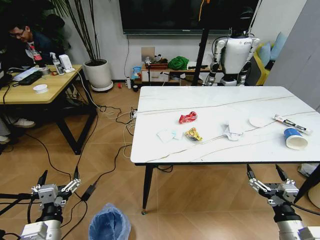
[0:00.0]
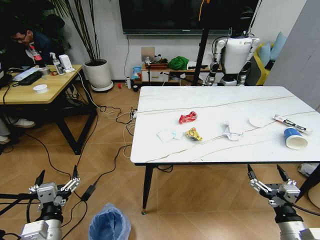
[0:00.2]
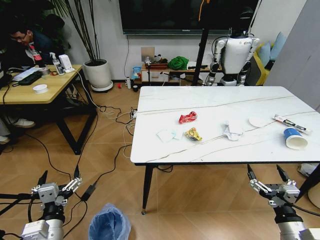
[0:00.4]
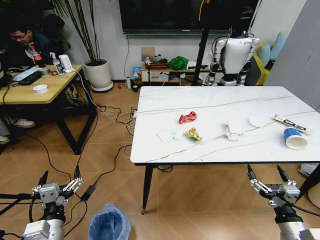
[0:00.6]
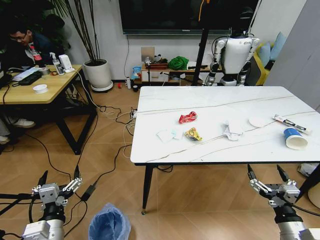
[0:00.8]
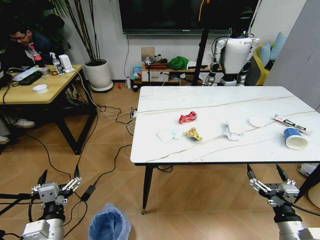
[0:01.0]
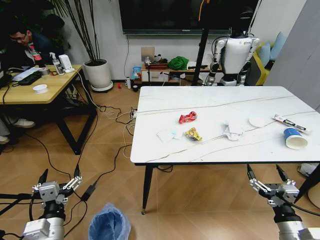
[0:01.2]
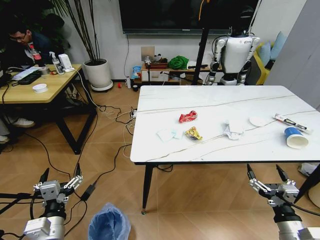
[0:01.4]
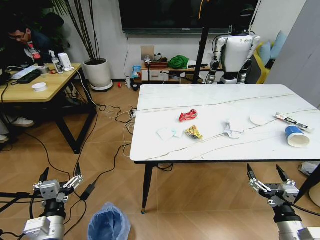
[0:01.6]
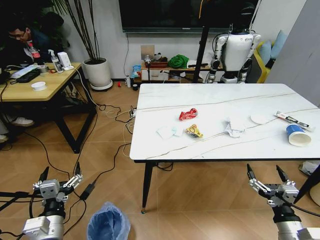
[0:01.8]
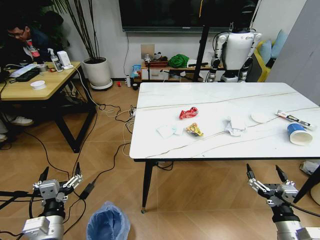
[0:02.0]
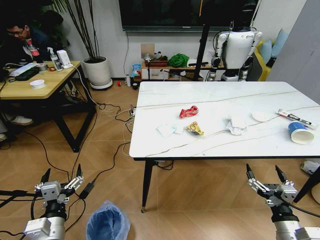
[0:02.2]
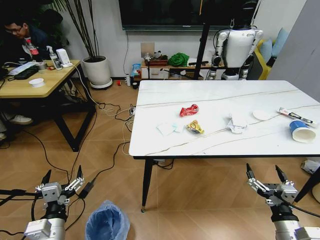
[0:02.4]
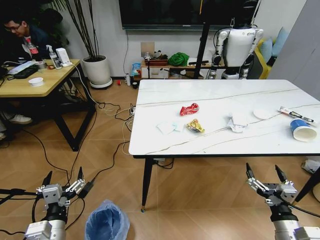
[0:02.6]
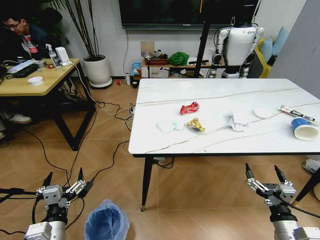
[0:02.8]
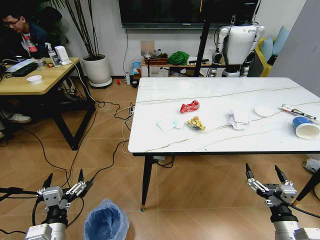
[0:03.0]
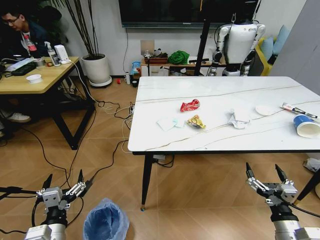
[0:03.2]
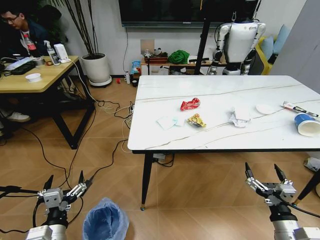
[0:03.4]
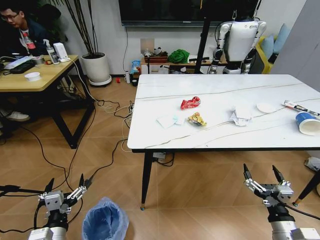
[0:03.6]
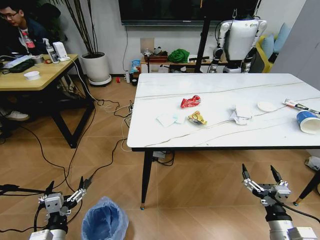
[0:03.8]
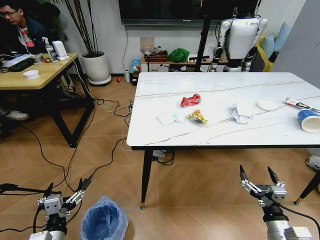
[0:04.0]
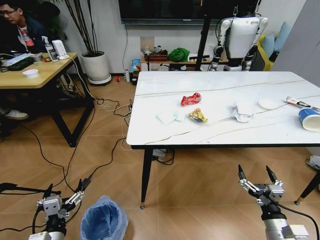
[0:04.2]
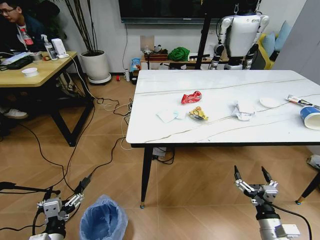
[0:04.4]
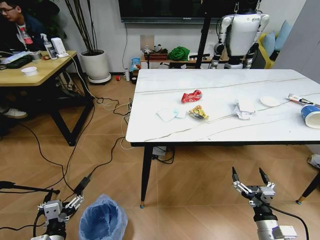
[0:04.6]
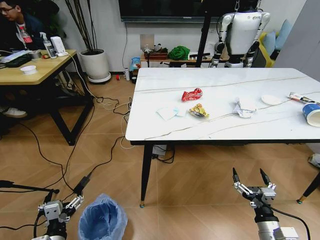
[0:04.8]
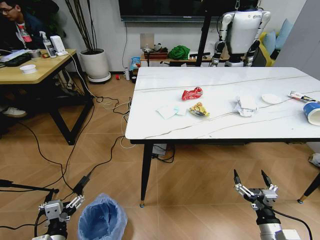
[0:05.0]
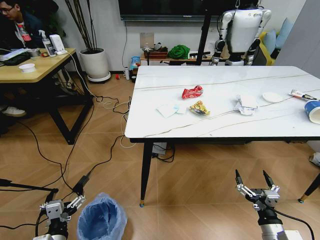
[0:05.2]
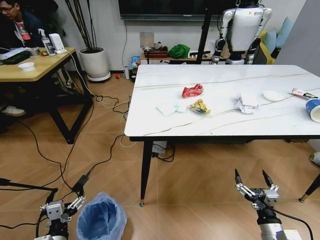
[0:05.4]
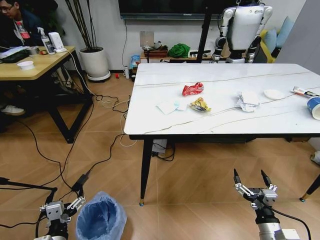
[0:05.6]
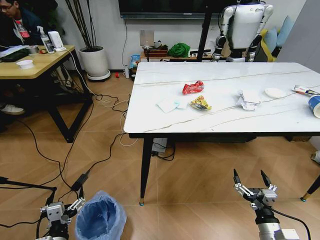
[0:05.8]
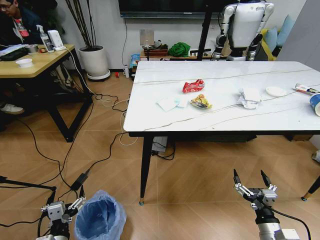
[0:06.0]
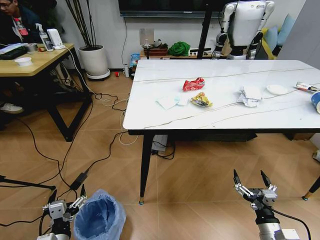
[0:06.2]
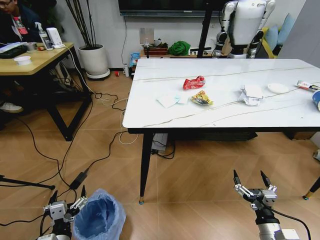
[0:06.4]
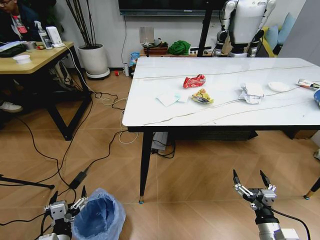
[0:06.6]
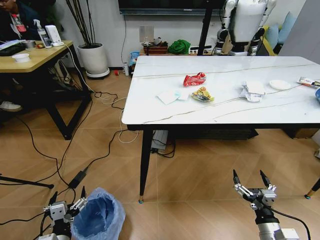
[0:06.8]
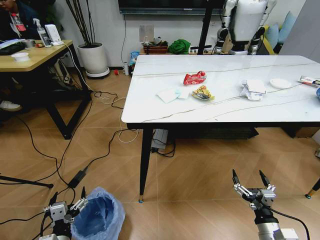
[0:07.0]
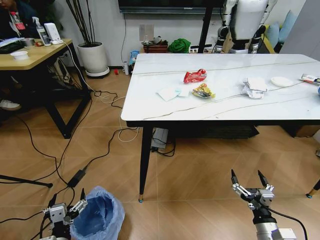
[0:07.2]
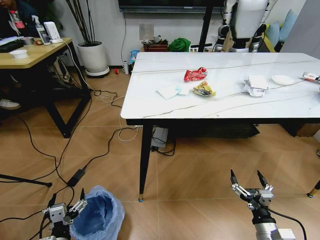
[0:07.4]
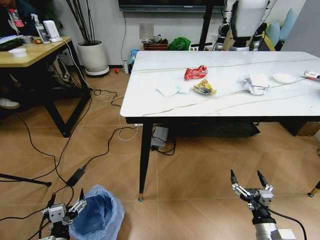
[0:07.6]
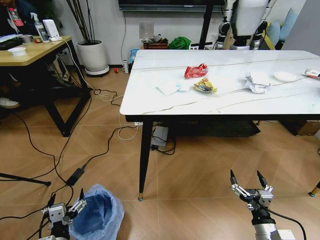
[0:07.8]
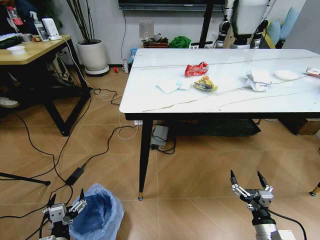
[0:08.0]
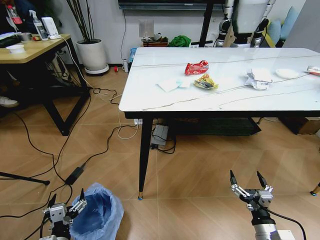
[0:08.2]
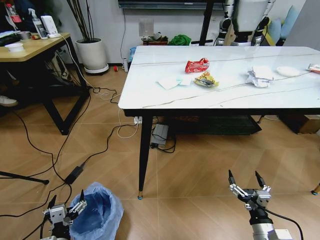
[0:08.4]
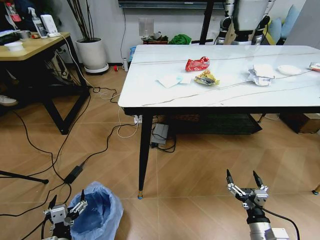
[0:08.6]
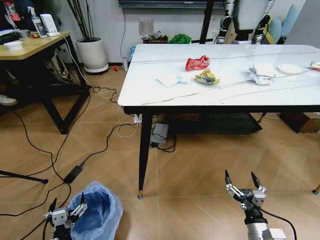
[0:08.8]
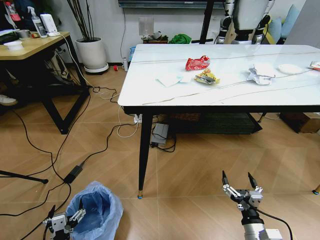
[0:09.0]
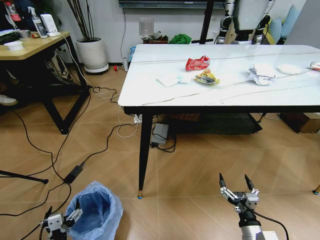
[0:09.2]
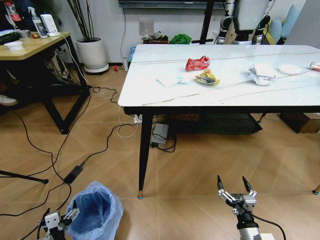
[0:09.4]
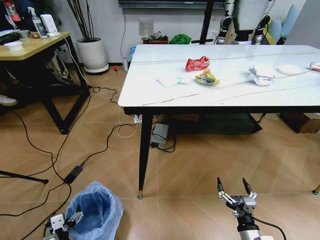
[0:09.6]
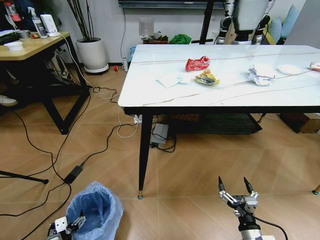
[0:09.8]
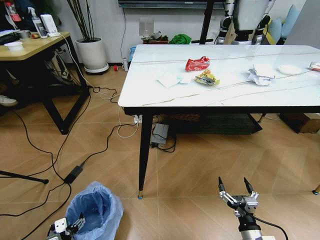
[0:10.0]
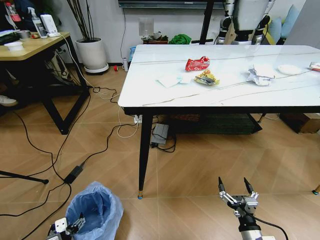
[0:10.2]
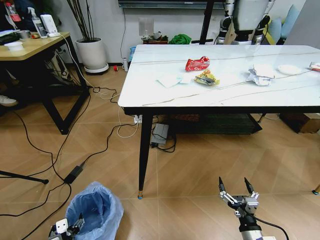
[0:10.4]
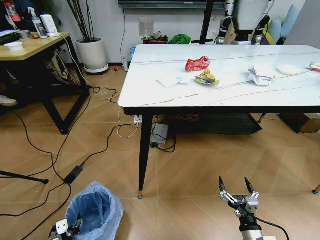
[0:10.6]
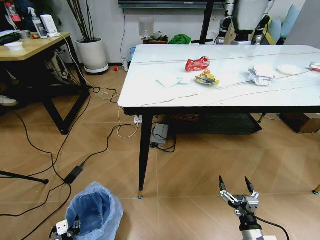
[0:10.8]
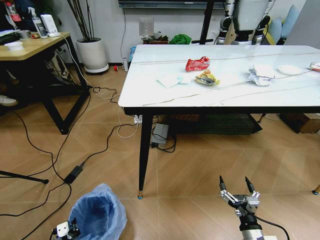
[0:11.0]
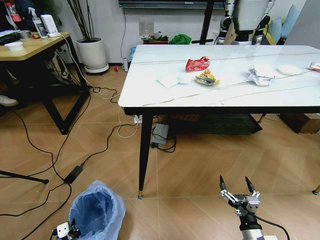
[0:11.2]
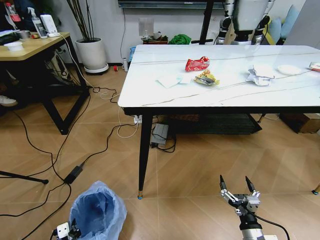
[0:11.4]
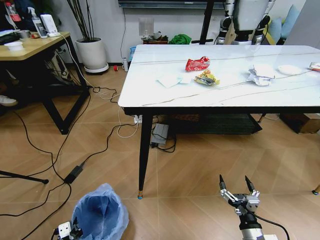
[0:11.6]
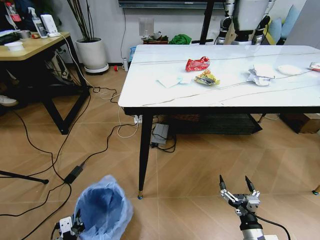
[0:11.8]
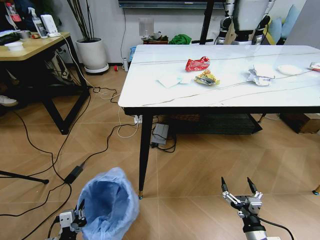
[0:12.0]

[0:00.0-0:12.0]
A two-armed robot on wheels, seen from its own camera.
Task of the whole recording: Pick up the trash bin and place the trash from the table into it.
0:09.0 to 0:10.4: The left gripper shifts by some 5 cm.
0:10.4 to 0:12.0: The left gripper shifts approximately 10 cm upward, and closes.

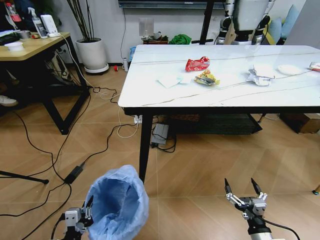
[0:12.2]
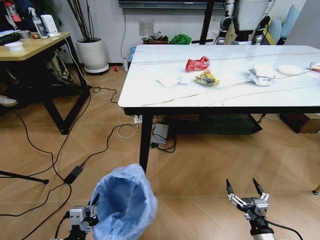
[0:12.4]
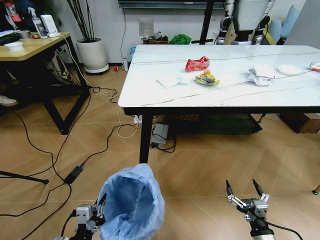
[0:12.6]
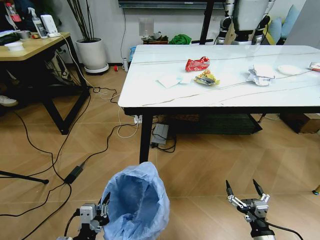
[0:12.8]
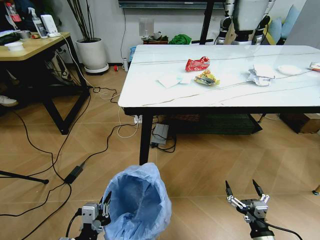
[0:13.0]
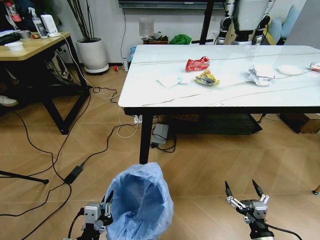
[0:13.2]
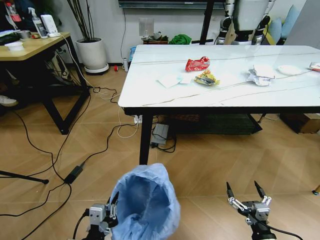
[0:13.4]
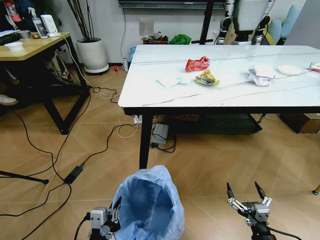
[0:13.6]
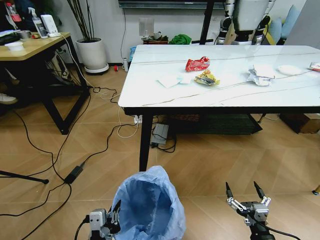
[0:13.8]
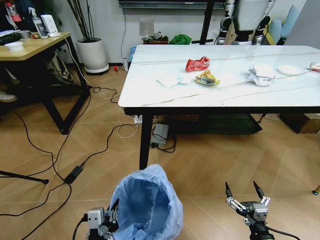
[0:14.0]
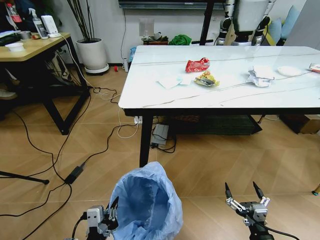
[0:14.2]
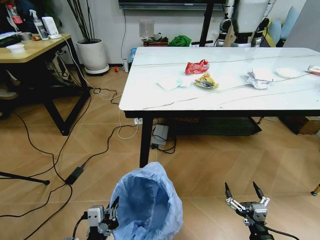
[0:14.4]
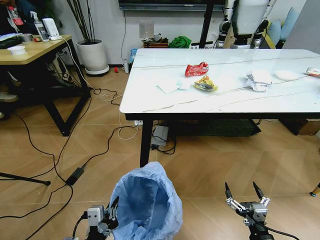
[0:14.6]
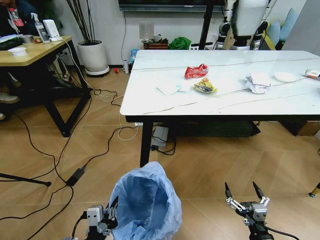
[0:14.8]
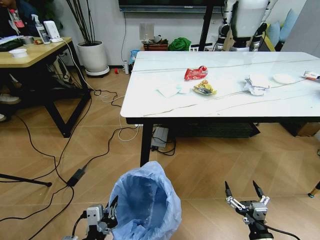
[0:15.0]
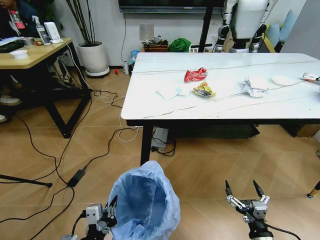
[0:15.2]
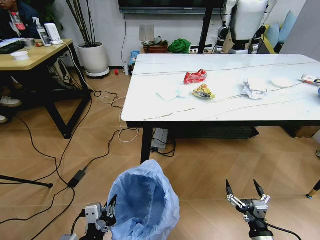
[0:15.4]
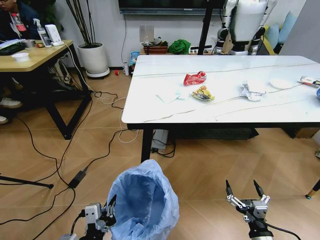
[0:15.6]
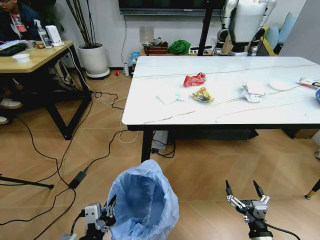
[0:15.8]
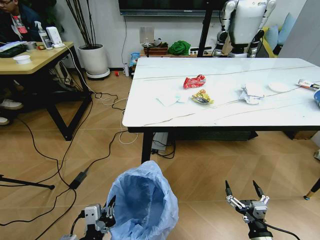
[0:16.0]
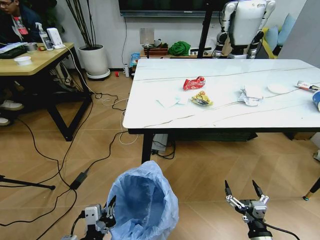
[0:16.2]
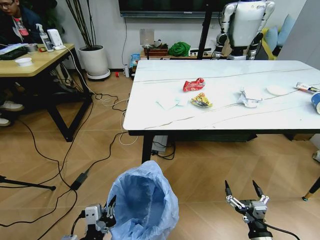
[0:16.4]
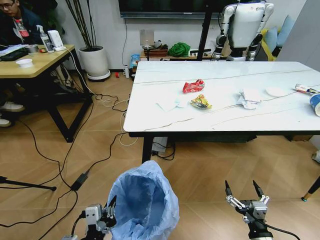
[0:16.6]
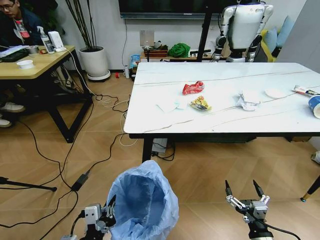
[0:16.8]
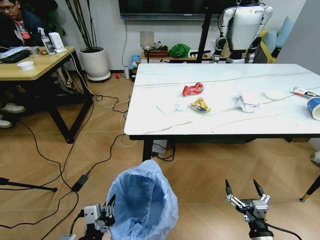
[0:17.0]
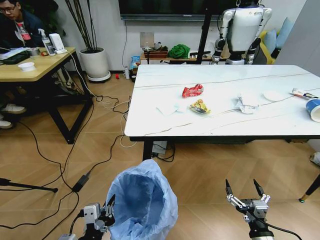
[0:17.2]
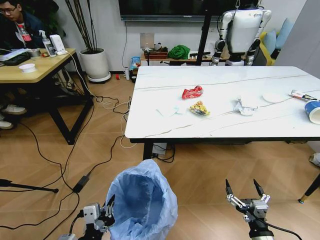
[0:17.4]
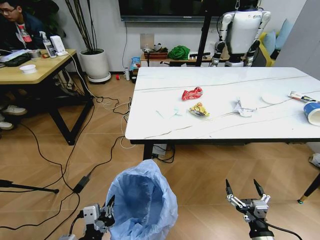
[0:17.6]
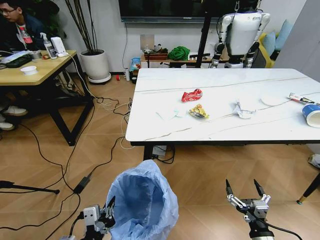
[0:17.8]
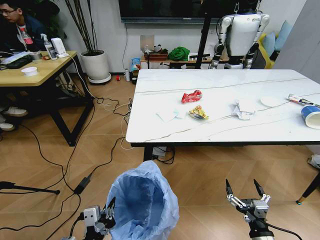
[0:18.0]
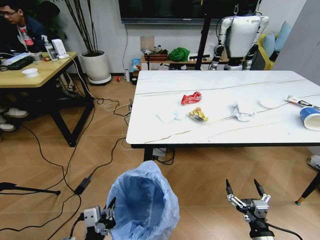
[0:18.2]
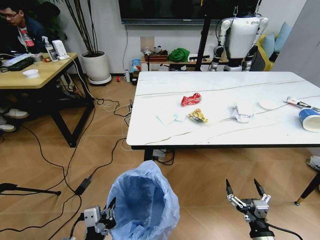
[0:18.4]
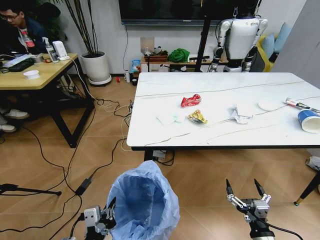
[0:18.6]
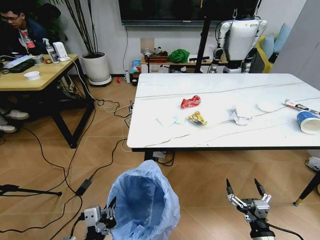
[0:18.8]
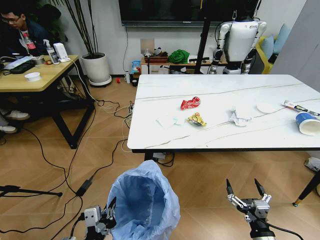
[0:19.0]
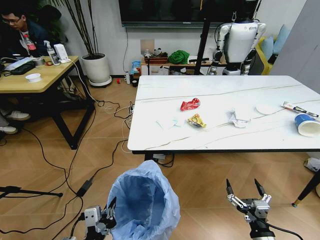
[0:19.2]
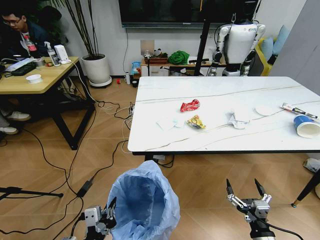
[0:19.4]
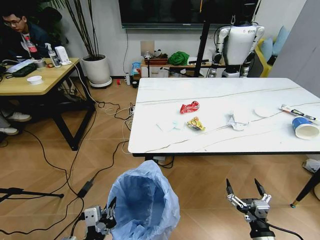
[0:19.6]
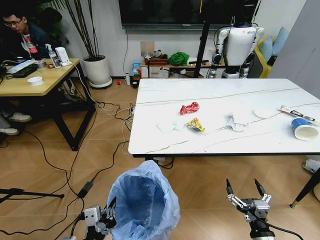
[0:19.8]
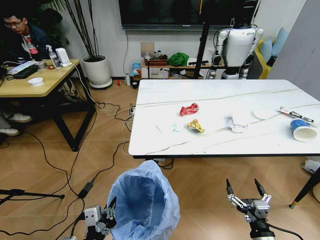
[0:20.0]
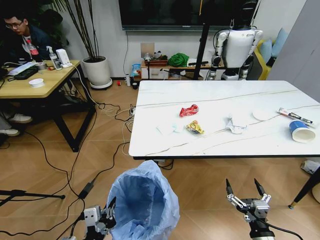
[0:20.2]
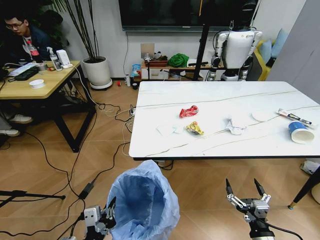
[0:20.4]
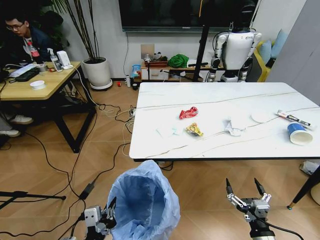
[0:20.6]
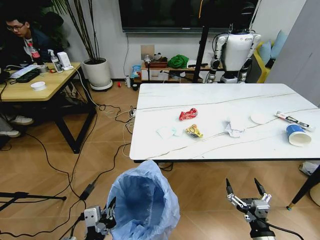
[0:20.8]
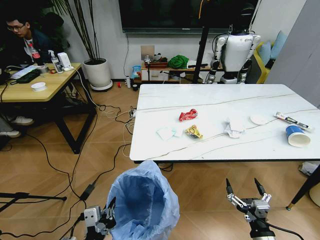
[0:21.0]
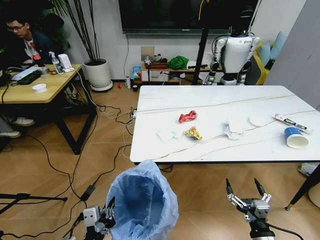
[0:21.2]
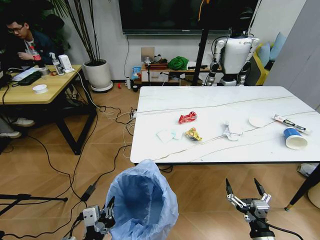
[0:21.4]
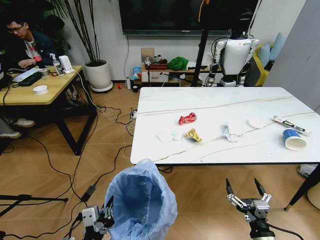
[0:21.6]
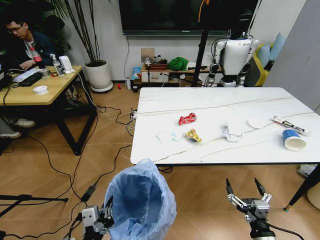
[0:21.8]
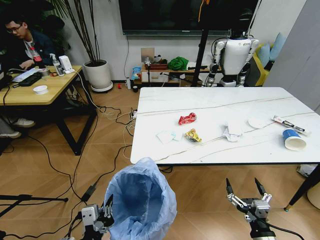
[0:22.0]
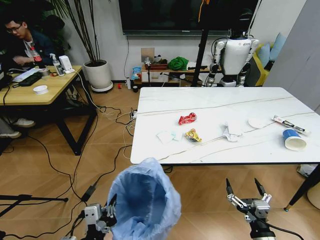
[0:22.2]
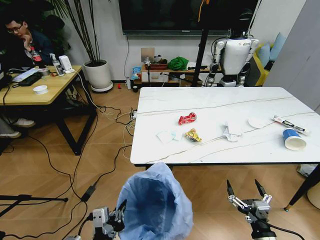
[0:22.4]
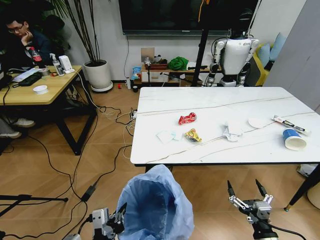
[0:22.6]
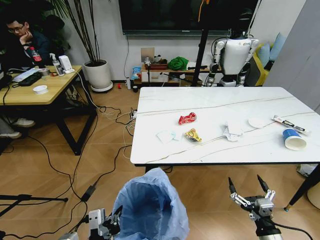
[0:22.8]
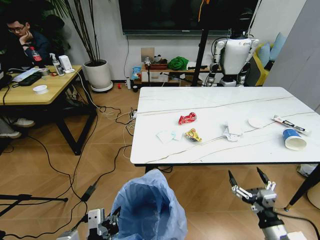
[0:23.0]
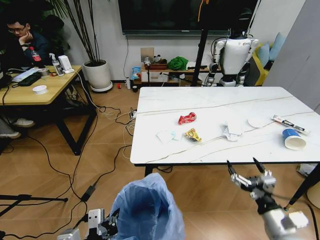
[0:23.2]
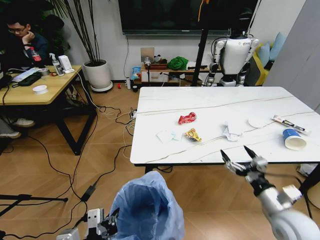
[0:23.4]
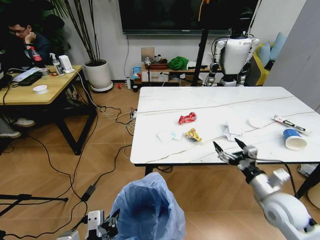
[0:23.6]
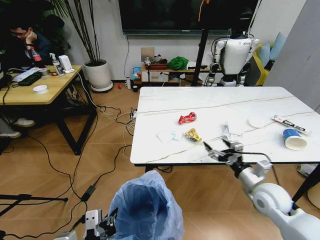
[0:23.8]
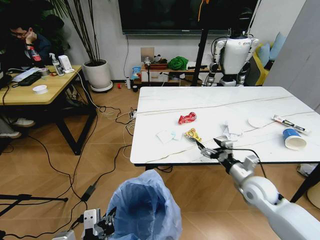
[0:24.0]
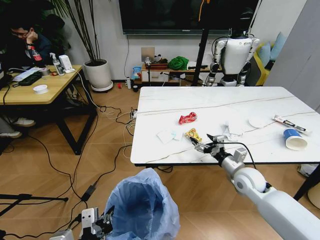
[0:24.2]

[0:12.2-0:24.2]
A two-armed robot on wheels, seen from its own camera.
Task of the whole recording: Pick up the trash bin and place the trash from the table into it.
0:12.2 to 0:13.8: The left gripper travels to the right and upward by some 10 cm.
0:21.2 to 0:22.6: There are only small adjustments of the grippers.
0:22.6 to 0:24.2: The right gripper shifts roughly 25 cm forward.
